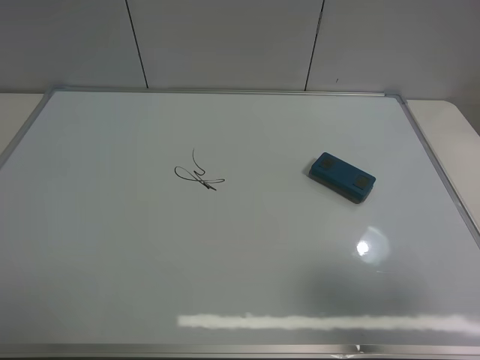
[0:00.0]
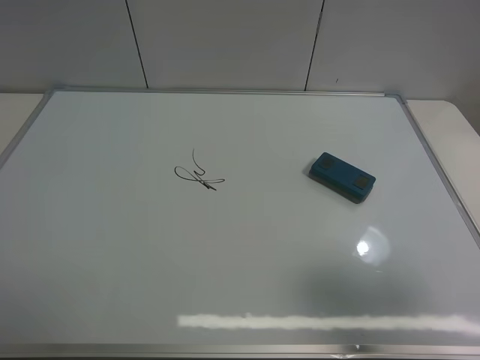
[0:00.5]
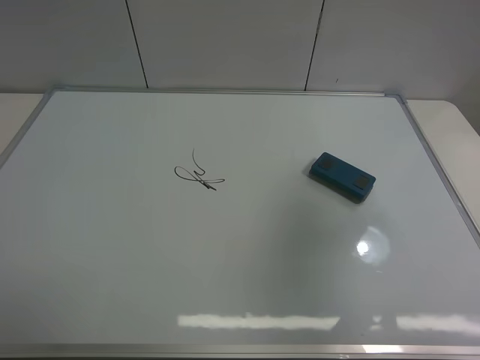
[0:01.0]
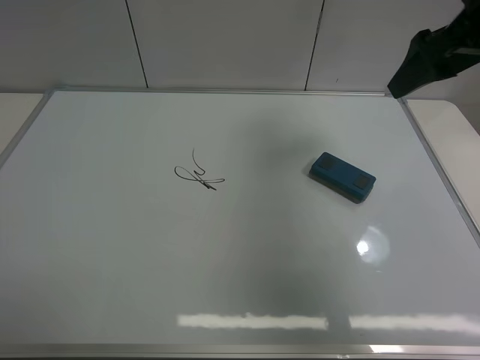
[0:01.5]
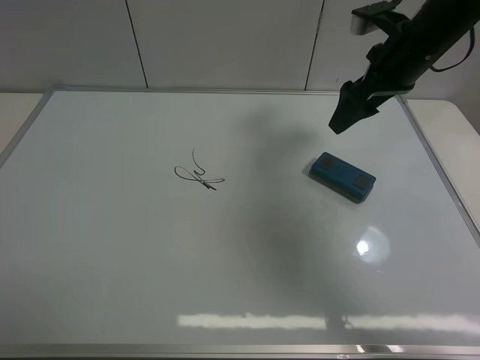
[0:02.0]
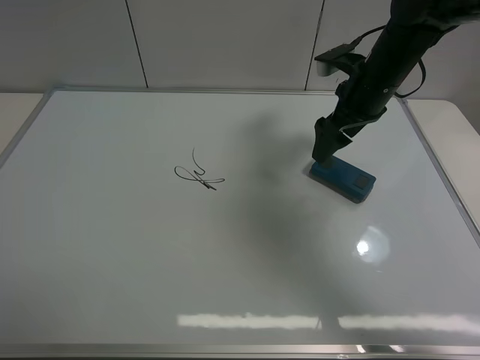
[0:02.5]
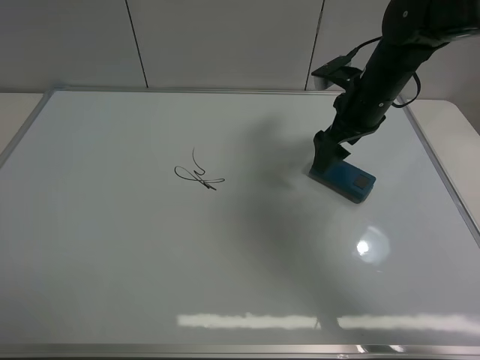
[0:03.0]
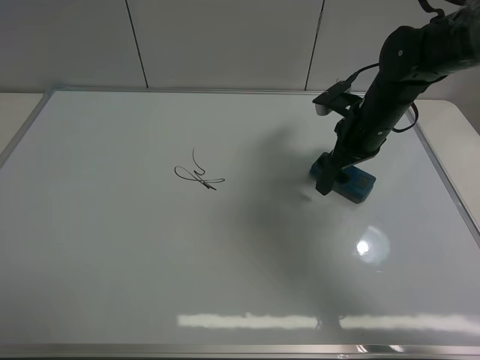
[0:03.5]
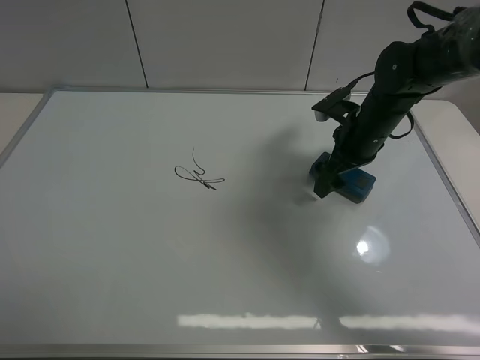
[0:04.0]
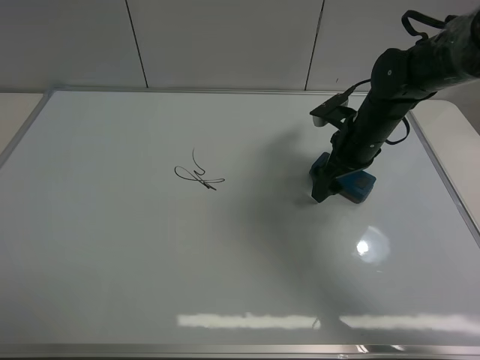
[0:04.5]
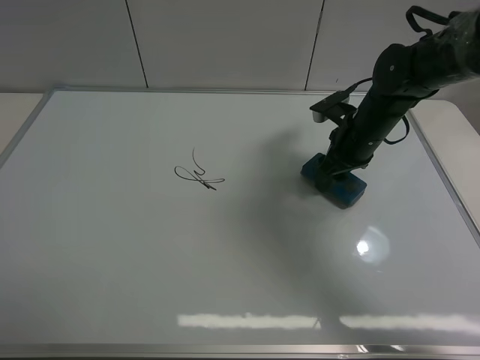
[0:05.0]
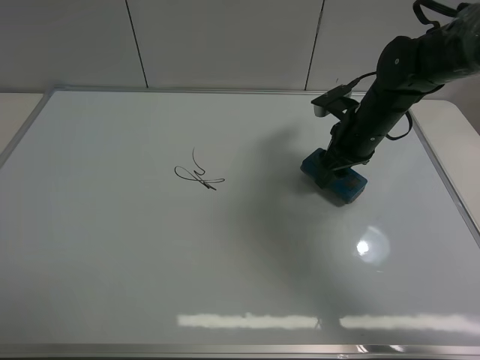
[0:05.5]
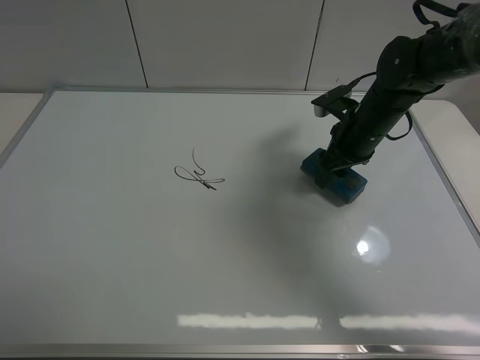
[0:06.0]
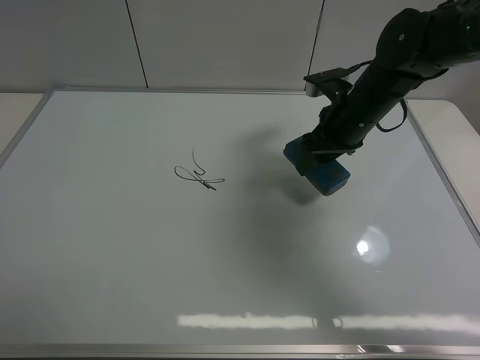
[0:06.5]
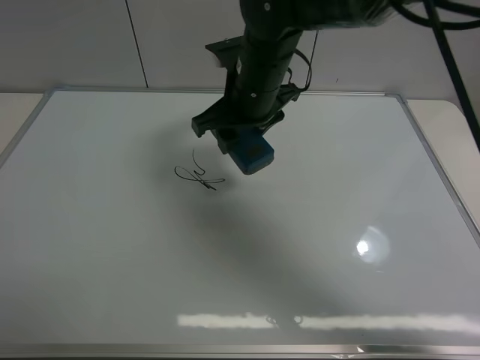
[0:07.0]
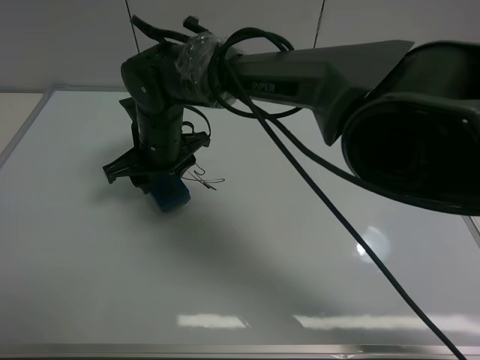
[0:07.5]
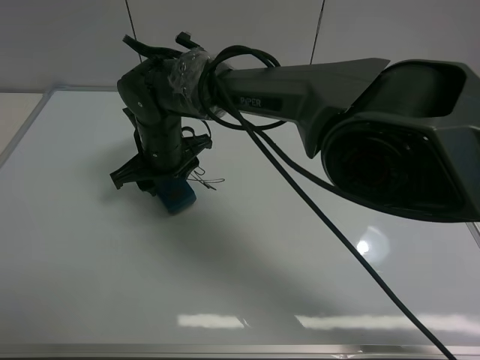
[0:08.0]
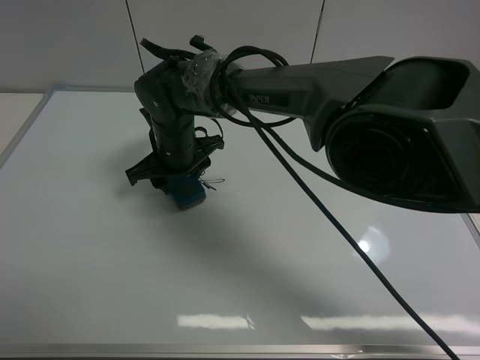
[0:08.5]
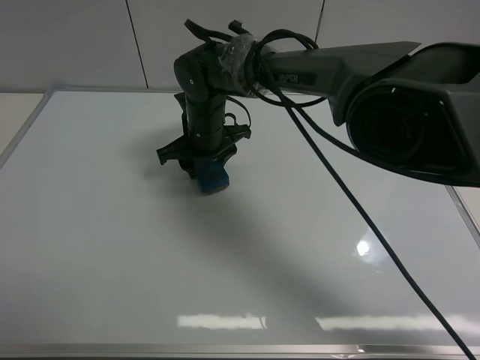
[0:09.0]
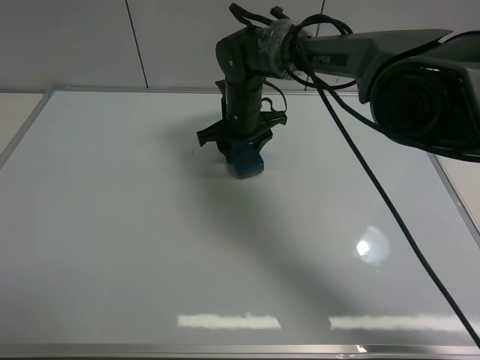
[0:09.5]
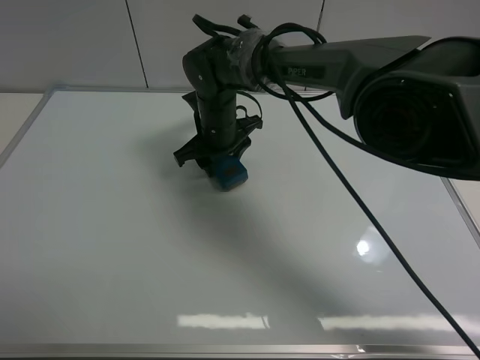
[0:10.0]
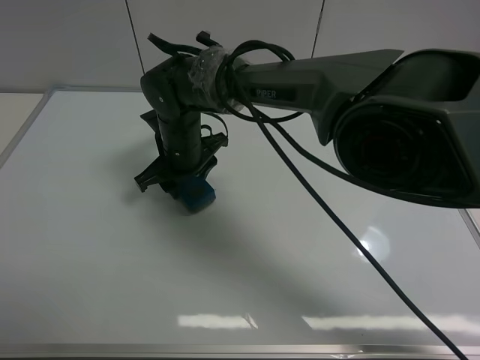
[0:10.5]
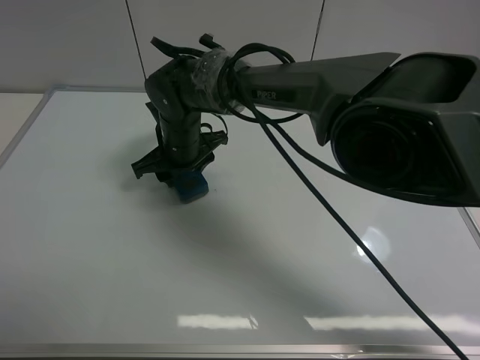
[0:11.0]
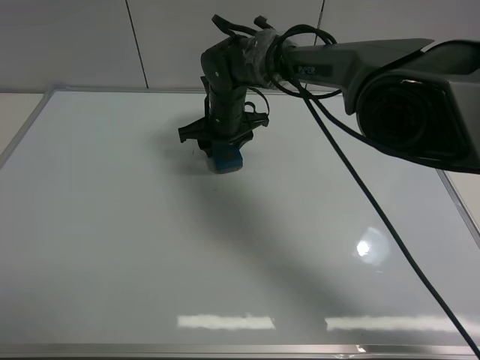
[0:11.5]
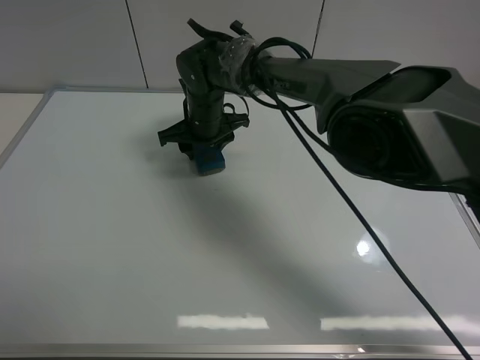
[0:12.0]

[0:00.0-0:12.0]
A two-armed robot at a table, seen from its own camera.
Task of the whole recording: use the right gripper to pick up the board eraser, wipe the notes on the whiteboard clean, and then put them back in place.
Step, 0:00.0 to 0:05.0: Pick up the board eraser with right gripper.
0:00.0 to 0:02.0: The right gripper goes roughly 35 cm forward.
0:02.0 to 0:04.0: The right gripper moves downward, roughly 10 cm.
0:04.0 to 0:06.0: The right gripper closes its fingers.
0:06.0 to 0:08.0: The right gripper travels to the left by roughly 30 cm.
0:08.0 to 0:10.0: The right gripper heads to the right and forward, covering about 10 cm.
0:10.0 to 0:12.0: The right gripper goes backward and returns, roughly 5 cm each way.

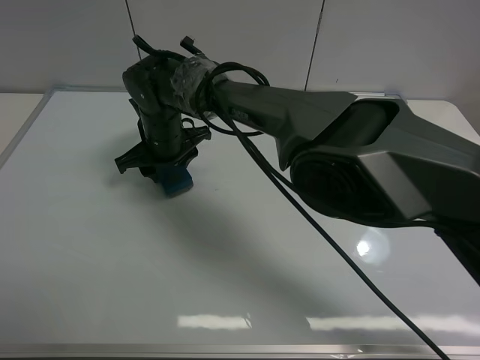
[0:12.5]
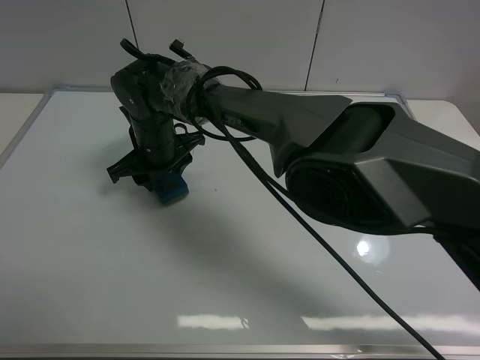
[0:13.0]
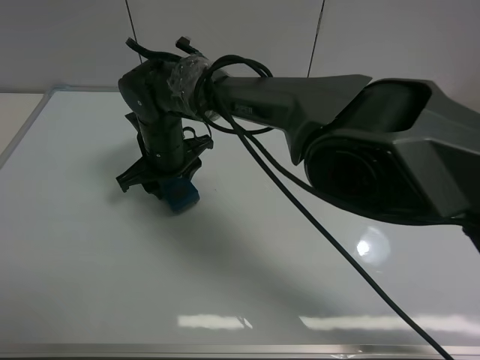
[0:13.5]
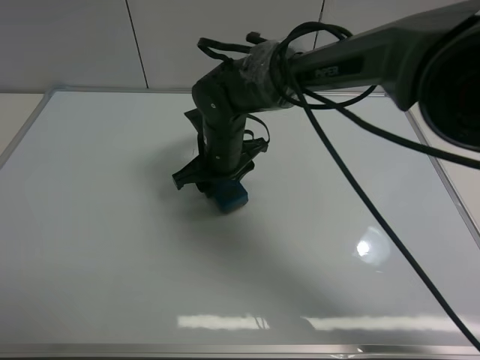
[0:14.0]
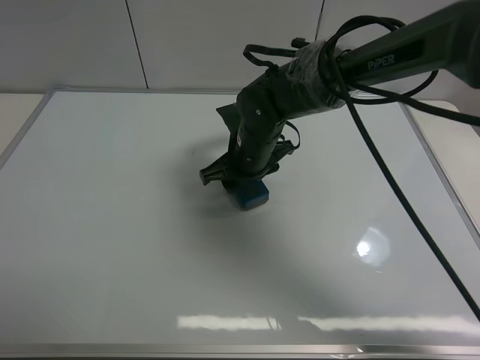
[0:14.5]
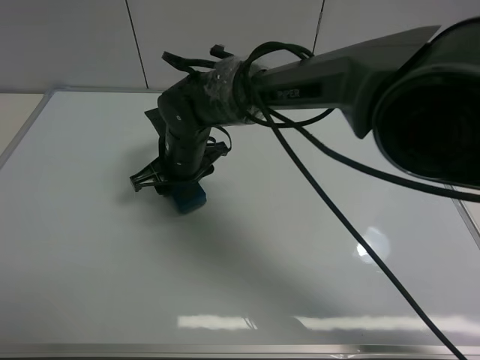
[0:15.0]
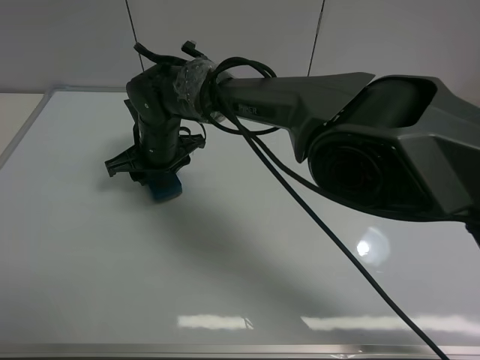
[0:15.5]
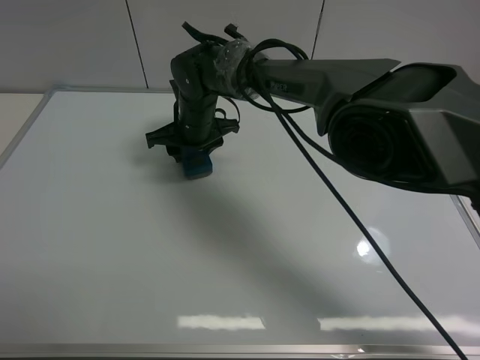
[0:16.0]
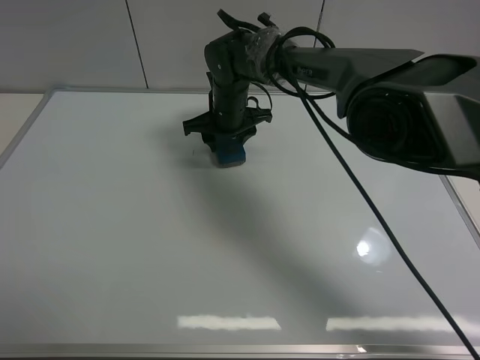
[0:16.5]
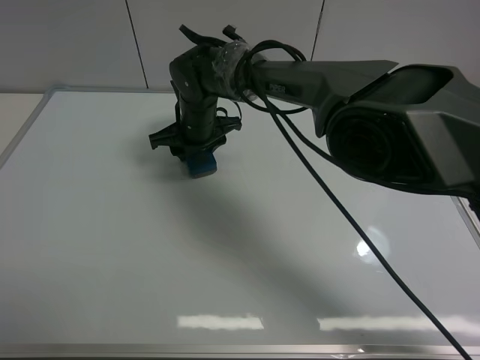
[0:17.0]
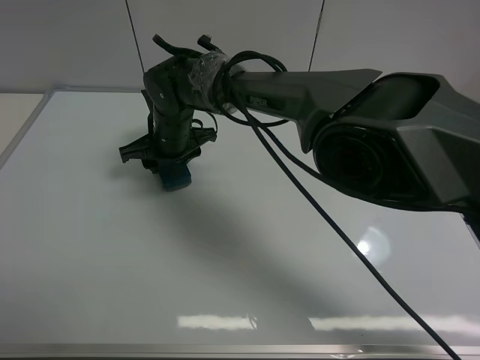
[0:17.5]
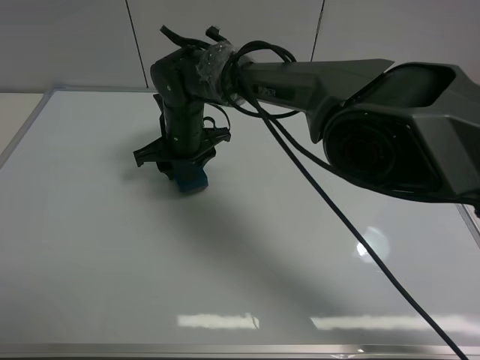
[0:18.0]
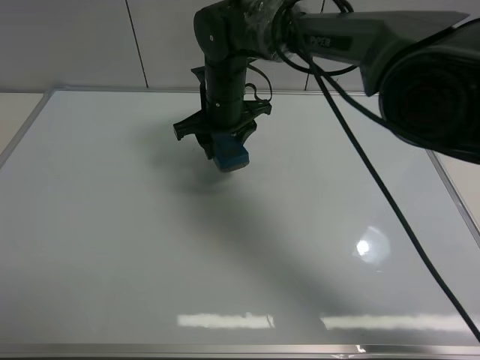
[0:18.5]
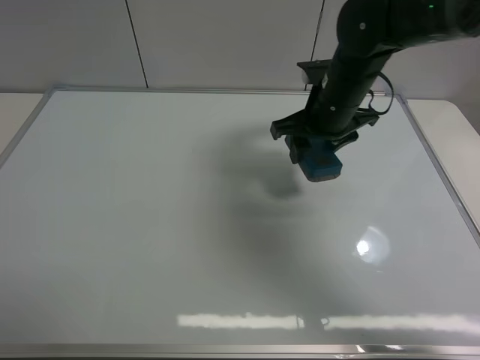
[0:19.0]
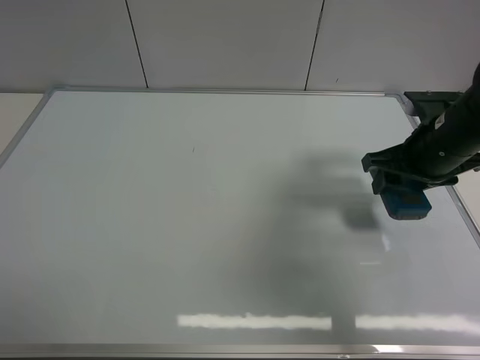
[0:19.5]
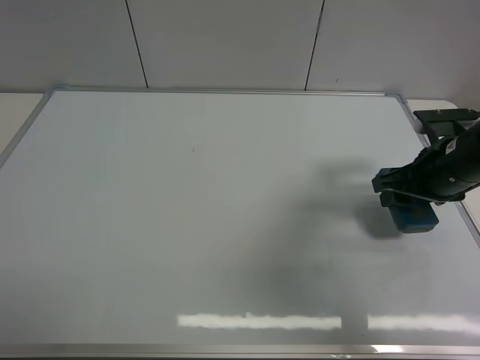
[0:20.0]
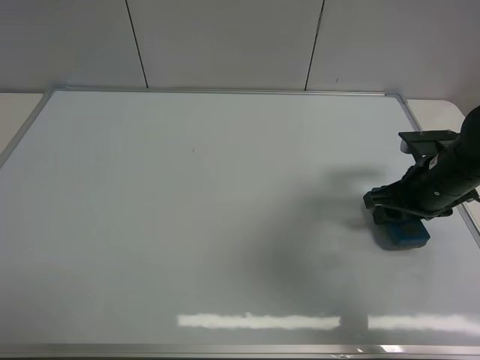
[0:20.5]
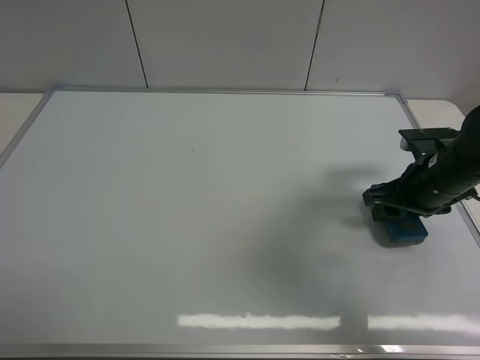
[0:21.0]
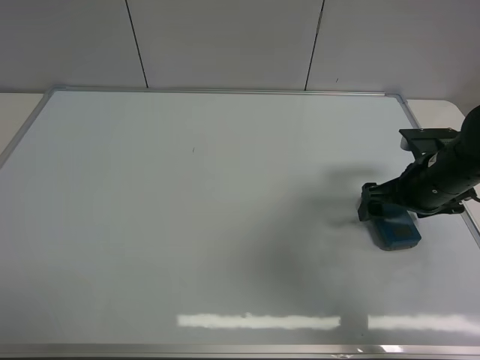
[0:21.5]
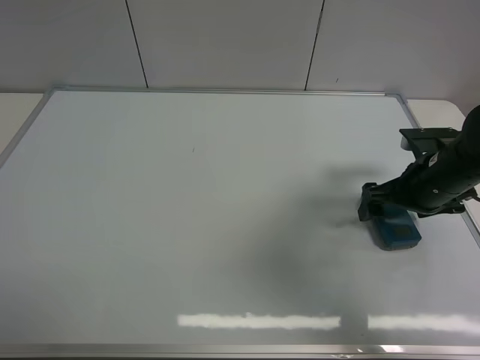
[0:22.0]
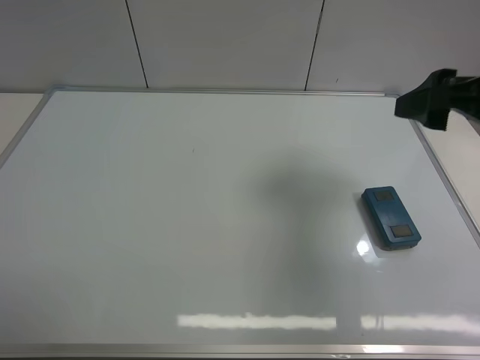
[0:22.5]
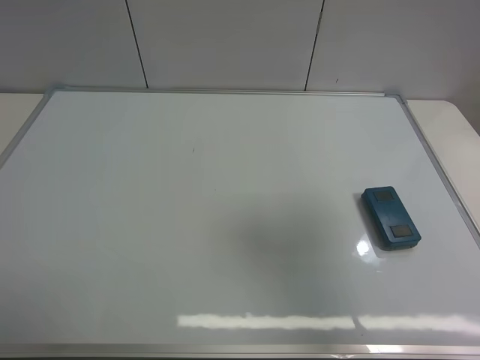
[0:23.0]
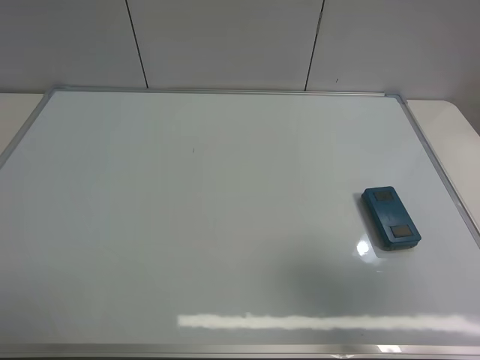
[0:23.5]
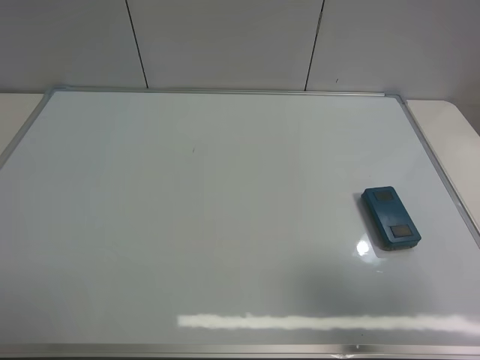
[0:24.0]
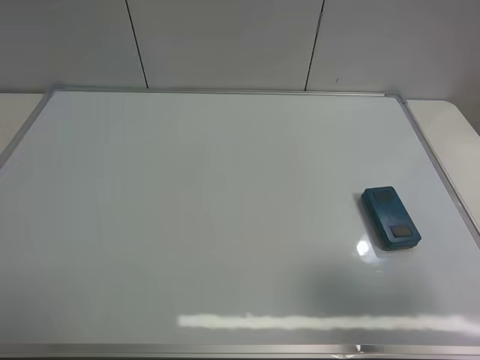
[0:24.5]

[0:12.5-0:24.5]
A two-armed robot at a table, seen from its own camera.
Task of the whole recording: use the right gripper to pick up the board eraser, wipe the notes on the whiteboard clean, and then put them back in place.
Step, 0:12.5 to 0:18.0: Wipe off the writing on the board with right gripper.
Step, 0:18.5 to 0:22.0: Place the board eraser on the right side of board with right gripper.
0:12.5 to 0:14.5: The right gripper heads to the right, covering approximately 15 cm.
0:14.5 to 0:16.5: The right gripper moves forward, roughly 10 cm, and goes to the left and returns, approximately 15 cm each way.
0:16.5 to 0:18.5: The right gripper heads upward, covering approximately 5 cm, and travels to the left and back again, some 10 cm each way.
0:18.5 to 0:20.5: The right gripper heads to the right and backward, covering approximately 30 cm.
0:20.5 to 0:22.5: The right gripper goes approximately 20 cm upward and backward, and opens.
0:22.5 to 0:24.5: The right gripper goes some 20 cm backward.
